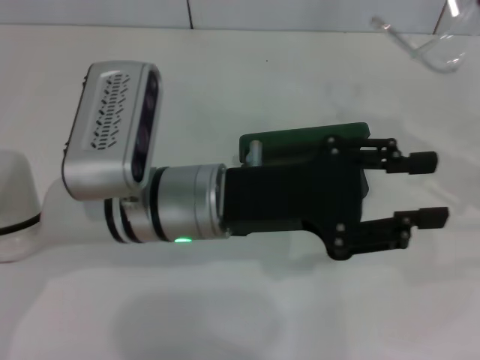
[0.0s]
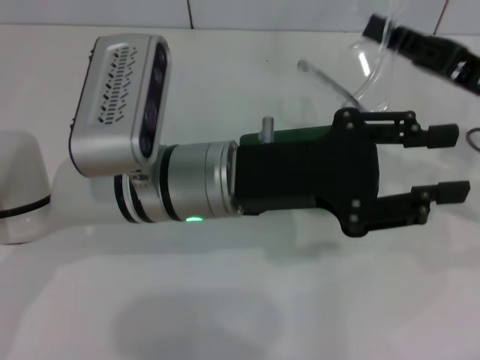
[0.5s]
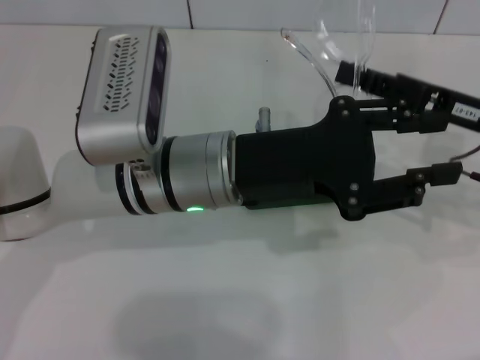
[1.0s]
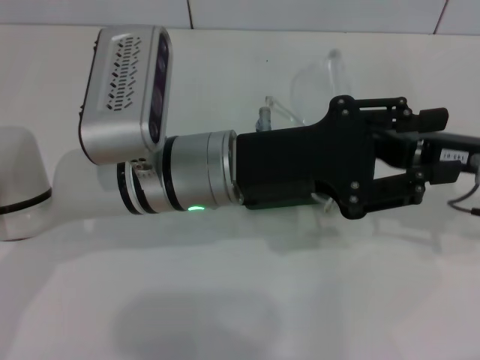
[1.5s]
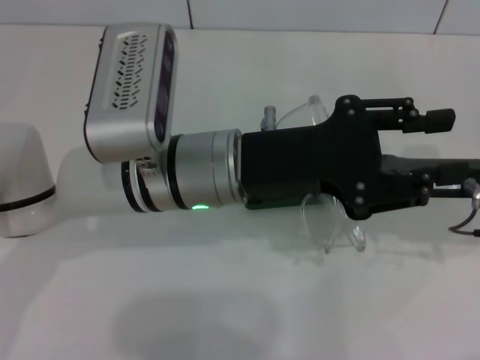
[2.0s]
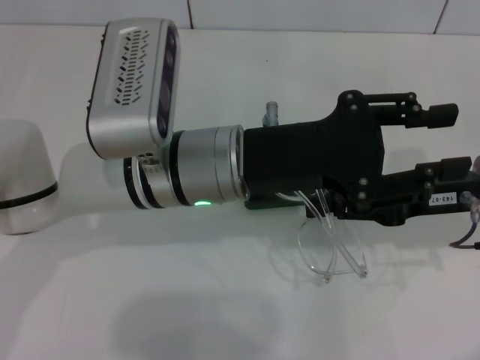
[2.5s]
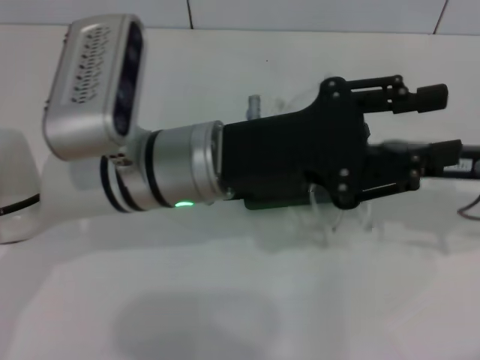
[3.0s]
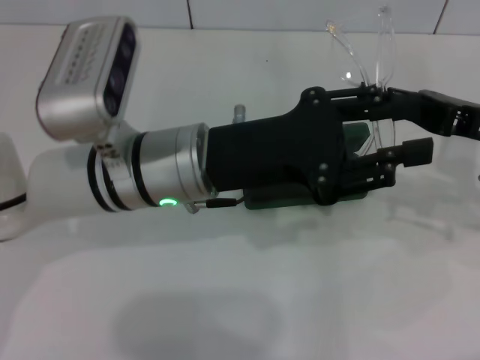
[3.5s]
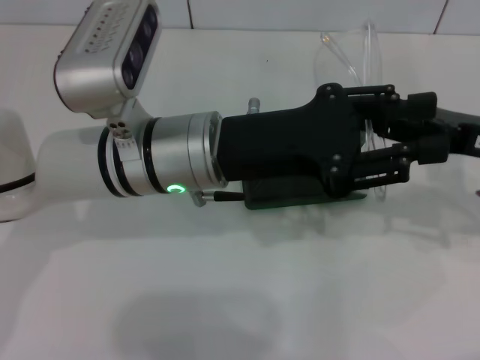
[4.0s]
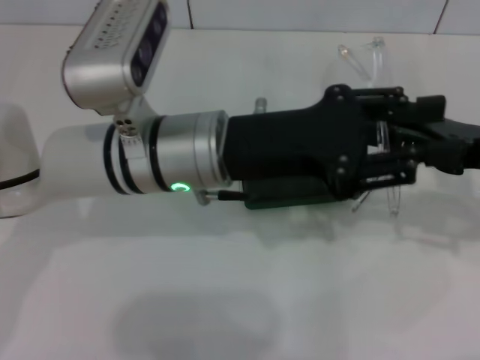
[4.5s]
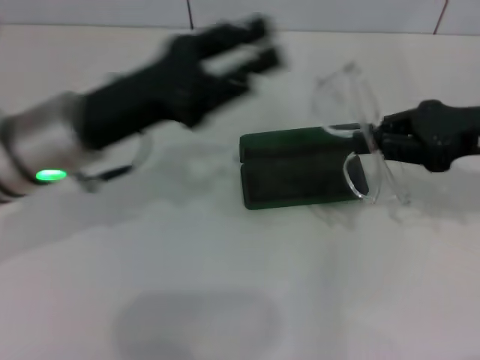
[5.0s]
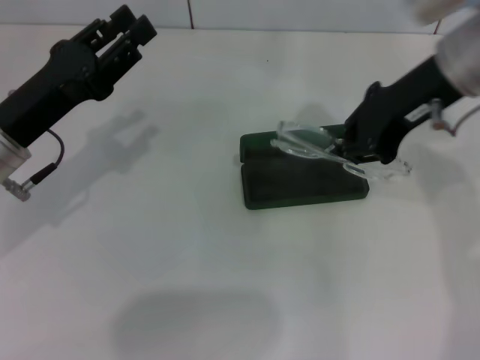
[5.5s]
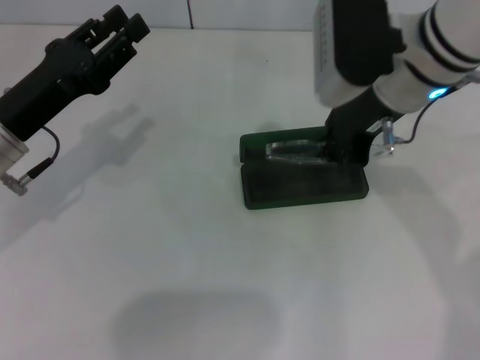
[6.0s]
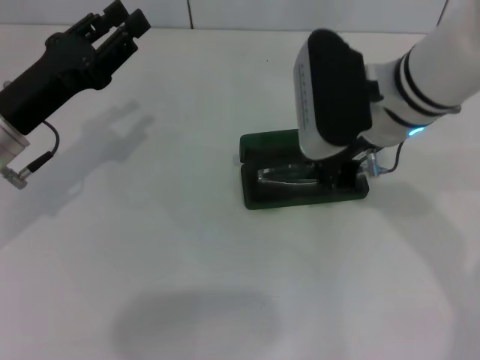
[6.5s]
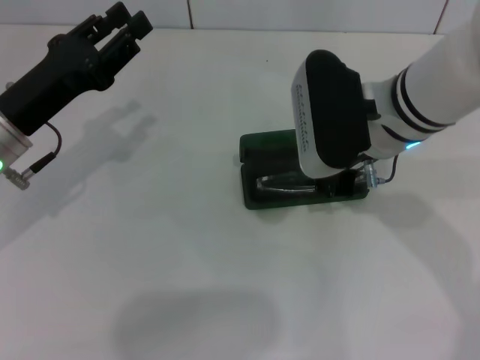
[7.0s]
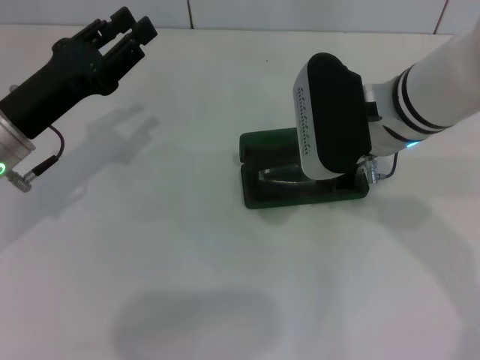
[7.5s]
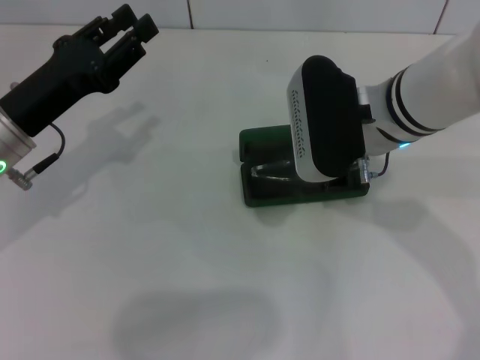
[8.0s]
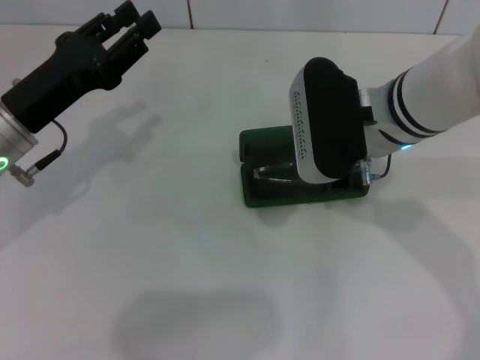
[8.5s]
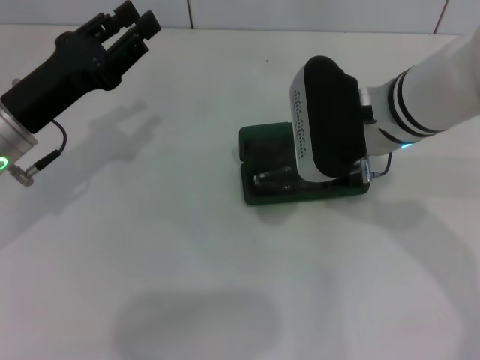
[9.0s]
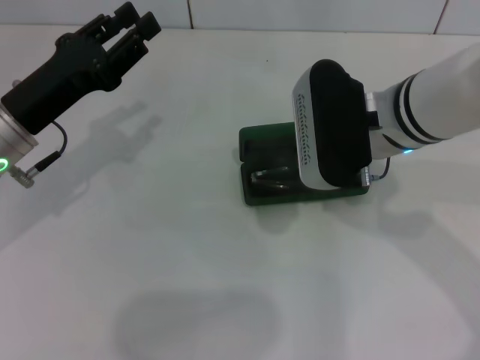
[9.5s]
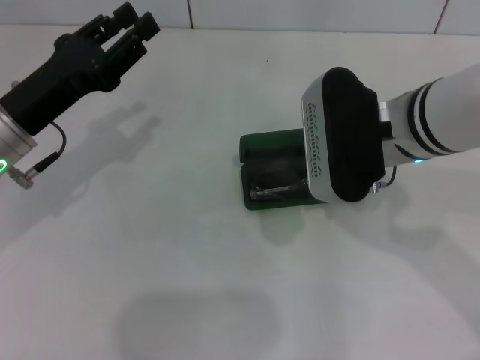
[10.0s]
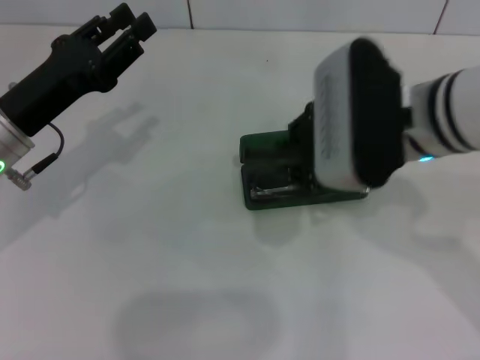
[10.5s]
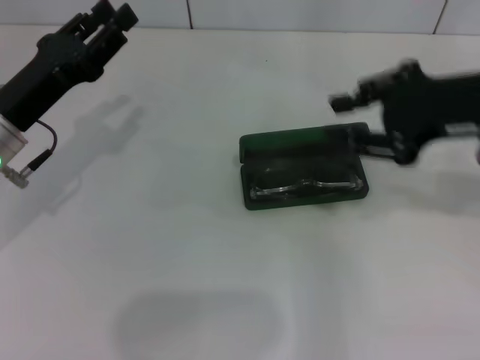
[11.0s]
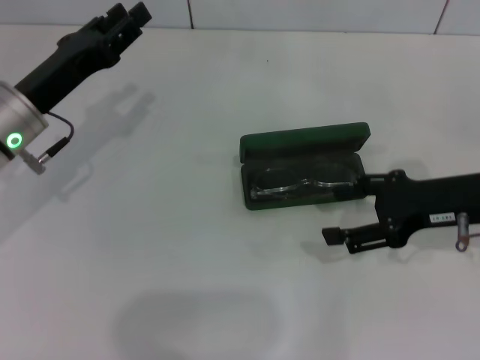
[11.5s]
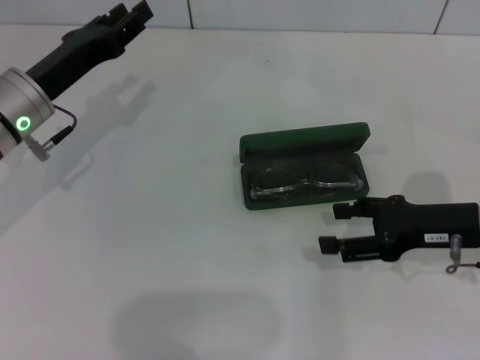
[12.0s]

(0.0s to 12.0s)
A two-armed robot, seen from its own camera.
Step, 0.0s - 4.0s: Lift the glasses with your right hand.
Step, 4.5s - 9.5s: Put the glasses into the case with your right hand.
0.0s - 2.0s: The right gripper is displaced to the left by some 5 cm.
4.0s - 6.0s: The left gripper shifts some 15 cm to the left. Meanwhile the right gripper goes roughly 15 cm to the left, upward and forward.
6.0s - 8.0s: The right gripper changes place by about 5 cm.
8.0s - 10.0s: The grippers make only small movements.
10.0s - 12.0s: The right gripper is displaced to the right and downward by roughly 15 cm, and opens up.

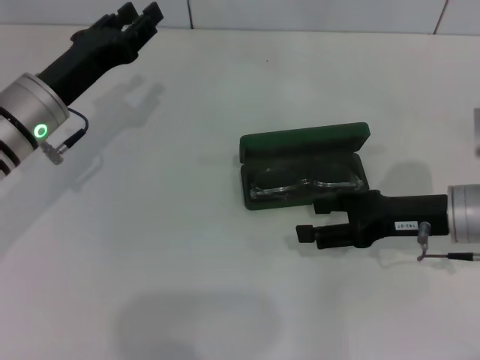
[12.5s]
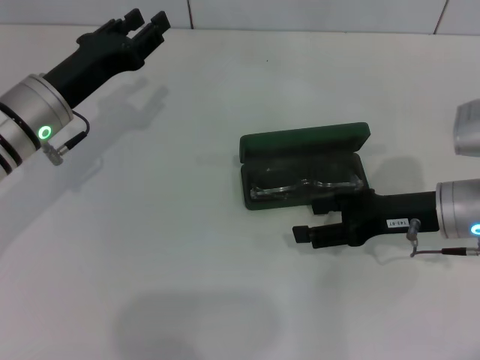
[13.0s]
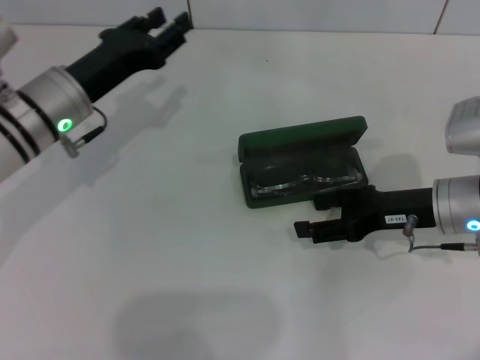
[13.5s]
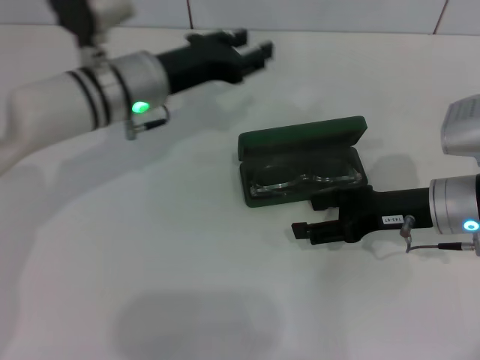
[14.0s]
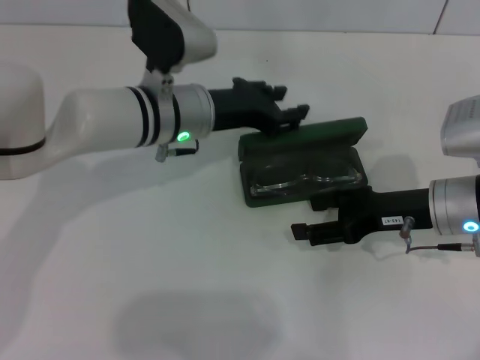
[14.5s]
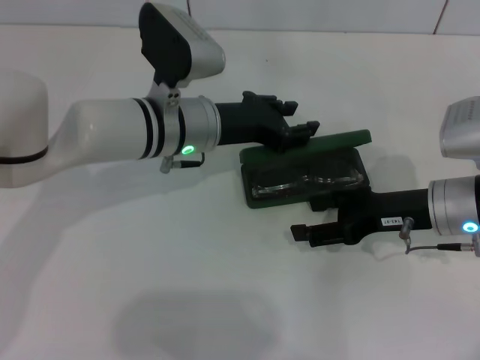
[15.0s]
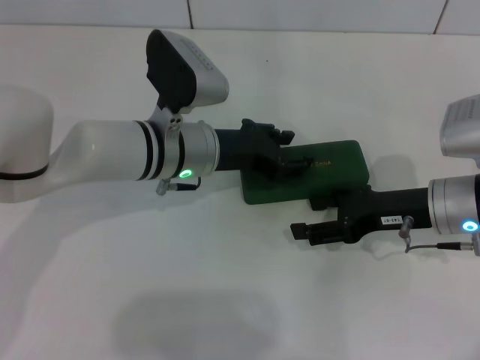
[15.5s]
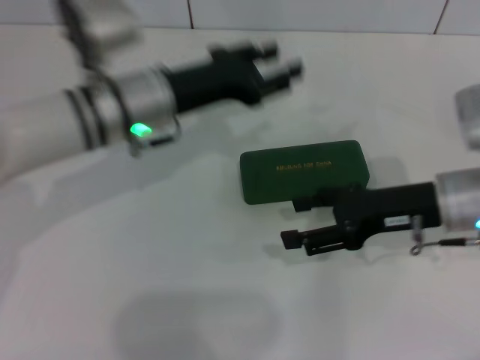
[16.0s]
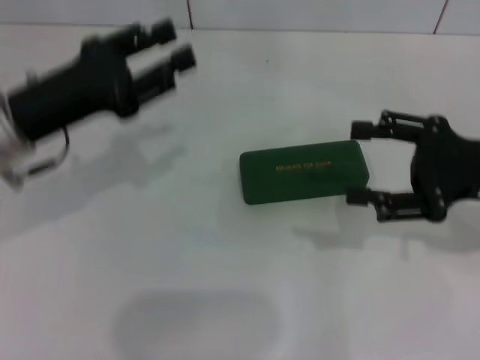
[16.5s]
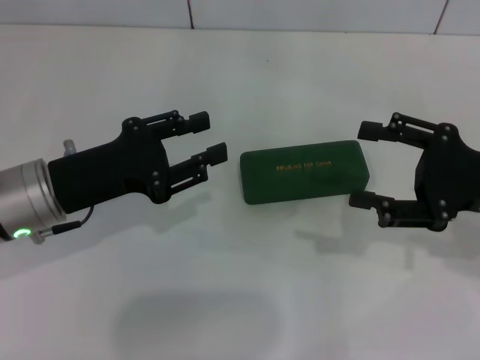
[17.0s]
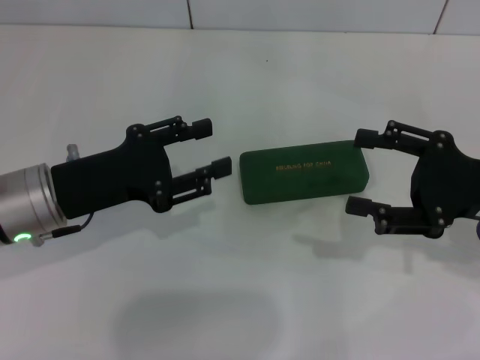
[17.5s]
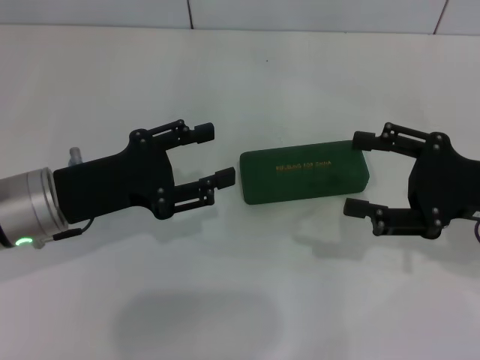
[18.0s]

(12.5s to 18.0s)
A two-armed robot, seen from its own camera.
Step, 12.5s - 15.0s: Close the glasses case with your left hand.
12.5s - 14.5s: The left gripper goes approximately 15 cm to the right.
14.5s - 16.0s: The left gripper shifts by approximately 5 cm.
16.0s - 18.0s: The left gripper travels backward and to the left by about 15 cm. Meanwhile the right gripper shifts about 5 cm to the right.
